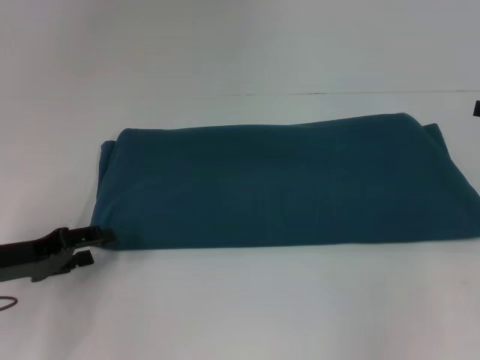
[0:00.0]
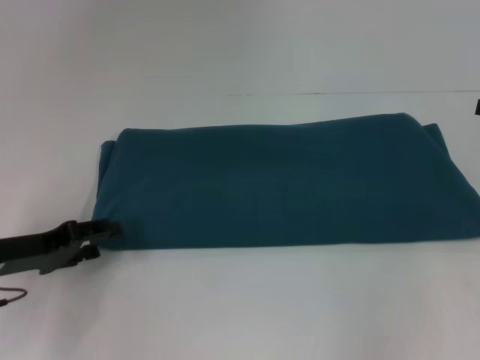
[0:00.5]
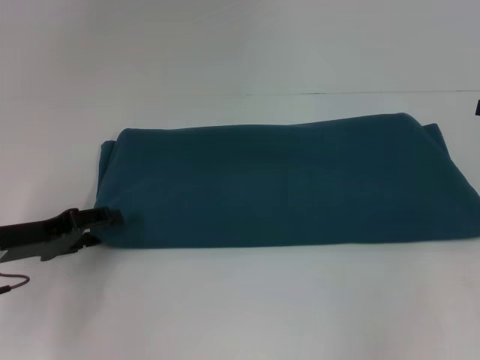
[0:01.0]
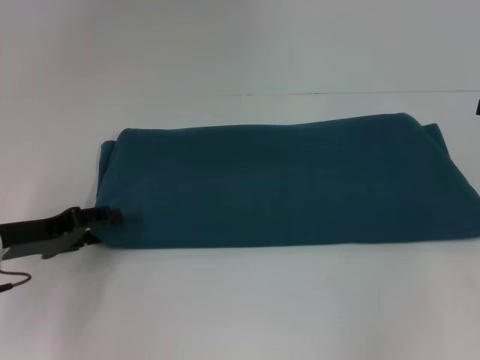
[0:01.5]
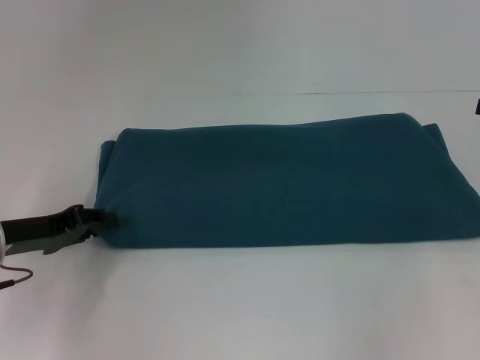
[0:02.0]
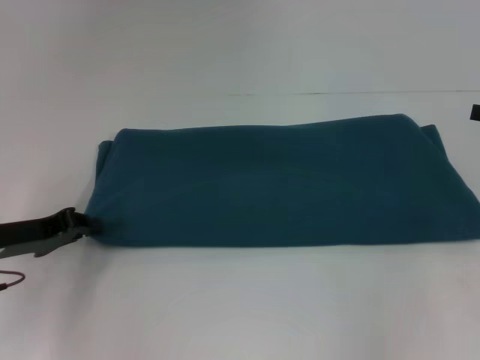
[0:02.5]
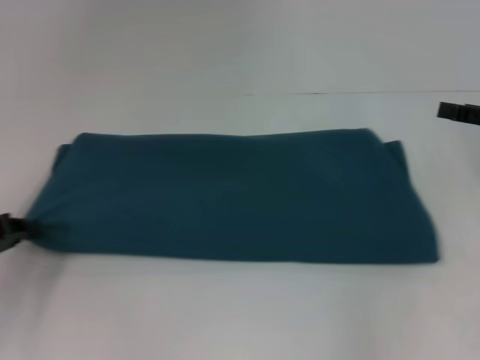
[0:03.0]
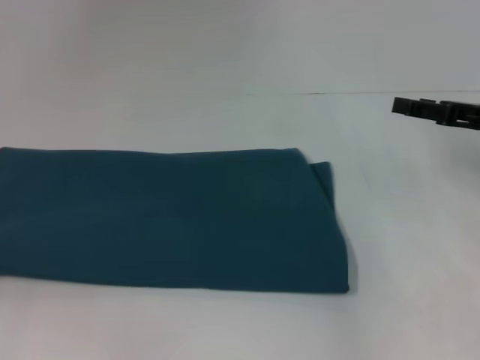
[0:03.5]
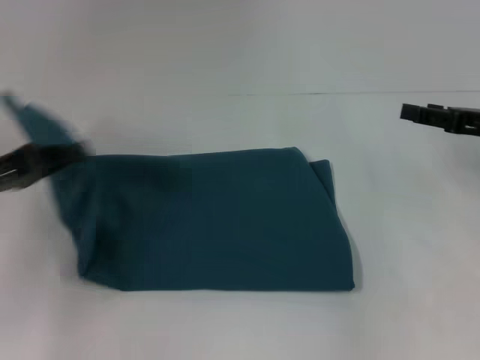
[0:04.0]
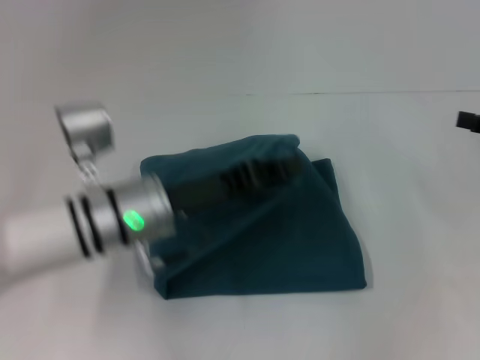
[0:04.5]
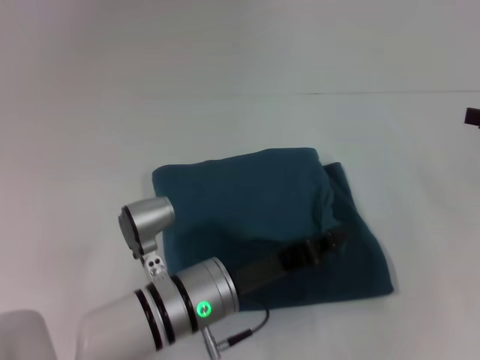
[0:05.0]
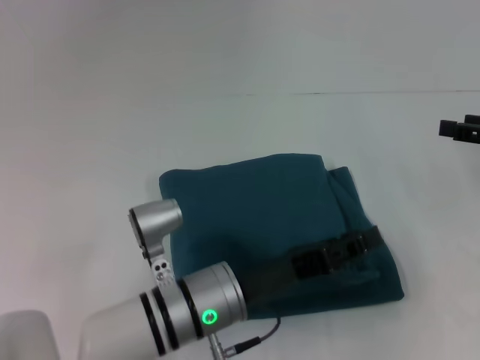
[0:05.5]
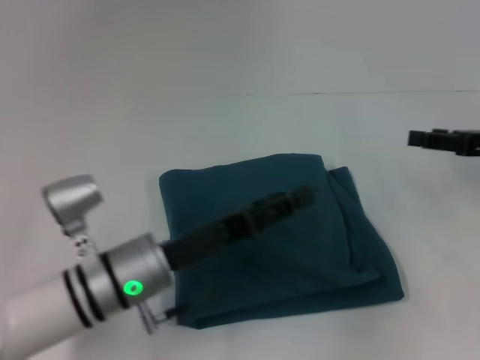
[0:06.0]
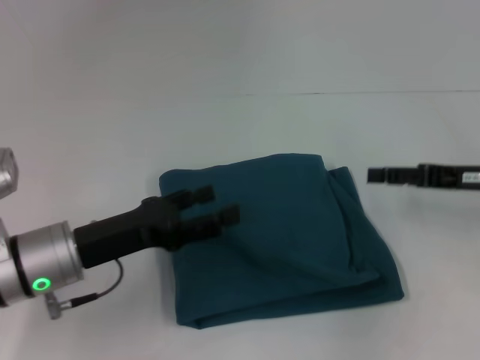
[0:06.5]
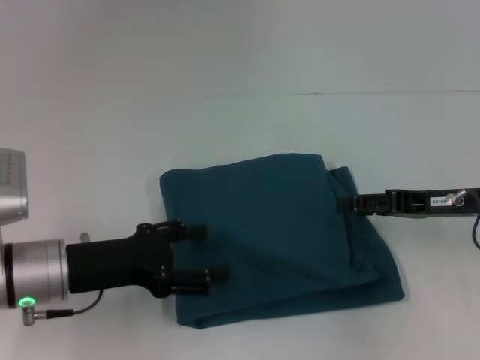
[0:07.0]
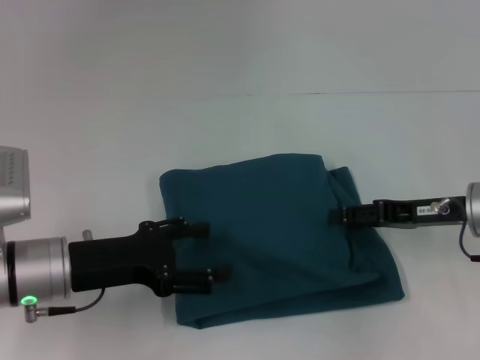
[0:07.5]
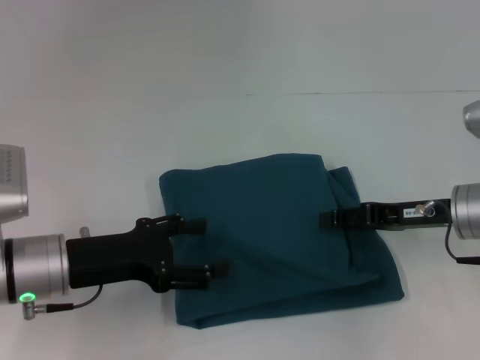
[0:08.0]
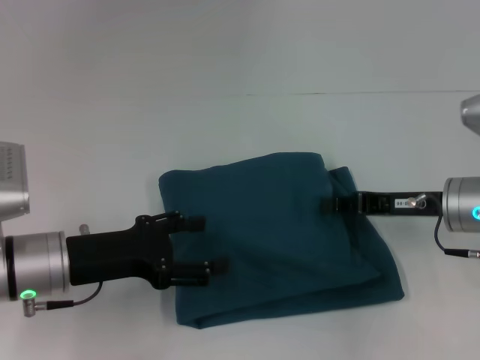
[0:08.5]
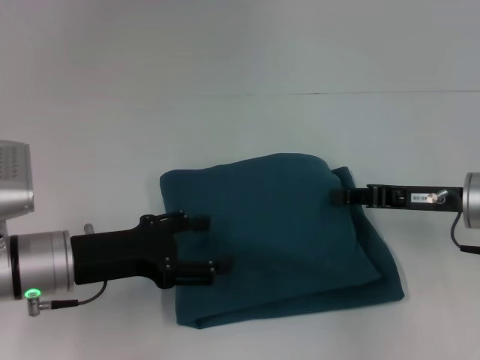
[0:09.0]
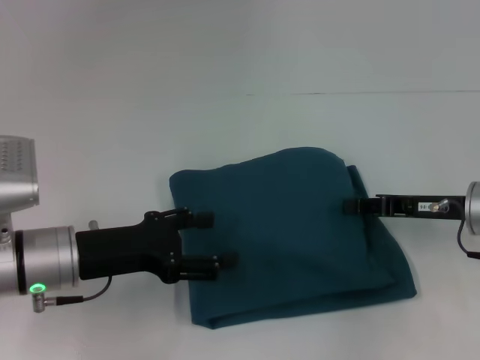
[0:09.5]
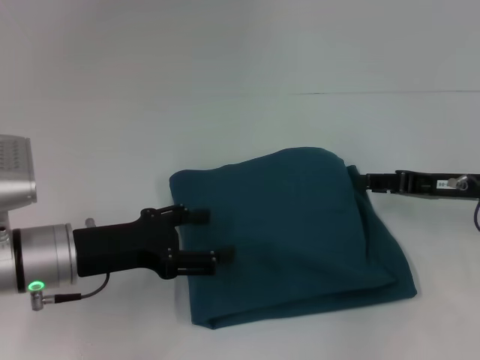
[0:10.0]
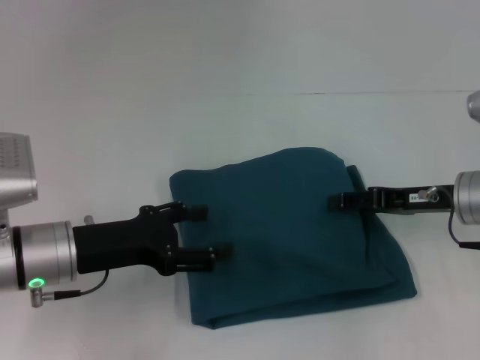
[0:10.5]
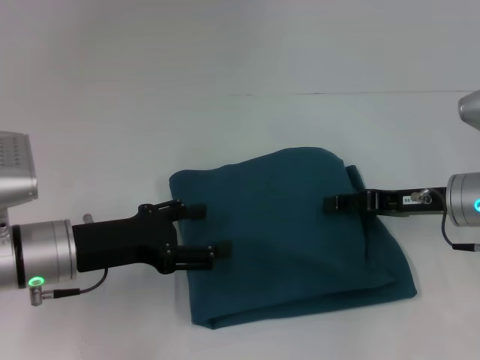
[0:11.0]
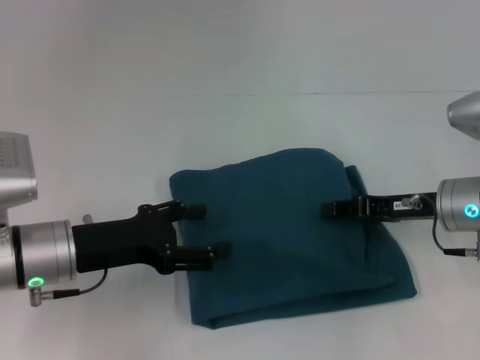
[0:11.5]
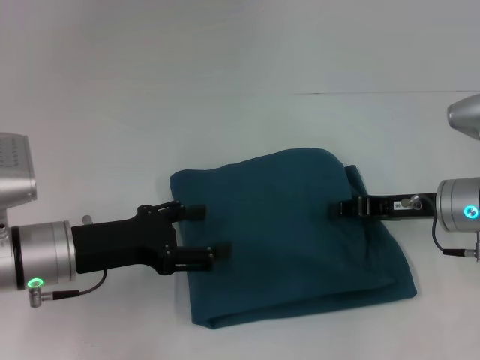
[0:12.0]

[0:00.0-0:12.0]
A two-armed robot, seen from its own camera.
Step, 0:00.0 to 0:05.5: Fold the clothes to the left.
0:00.0 to 0:02.0: The grippers move only a little.
0:02.0 to 0:04.0: The left gripper travels upward by roughly 5 cm, moves roughly 15 cm to the left and comes back, and closes up. Meanwhile the right gripper moves to the left, approximately 5 cm.
0:04.0 to 0:06.0: The left gripper heads to the right and downward, covering some 20 cm, and opens its fingers.
0:06.0 to 0:08.0: Both grippers move to the left, approximately 10 cm.
0:08.0 to 0:10.0: The right gripper closes, then opens again.
0:10.0 to 0:12.0: The grippers make only small movements.

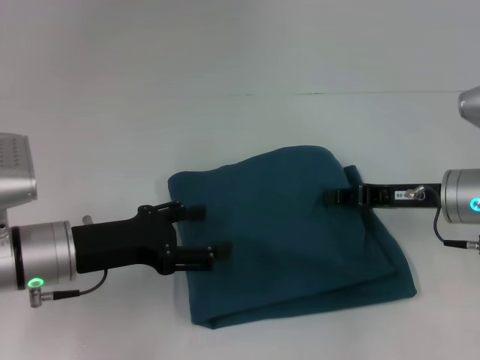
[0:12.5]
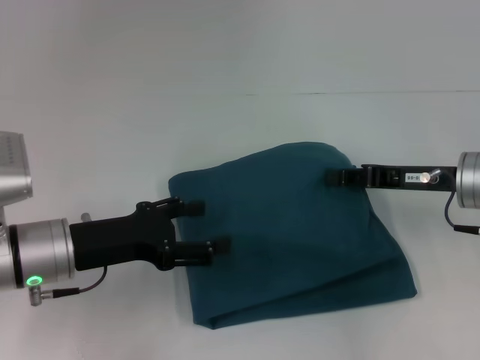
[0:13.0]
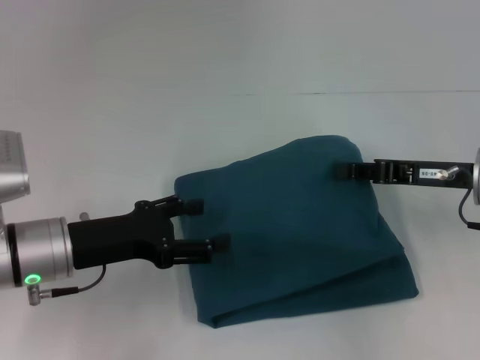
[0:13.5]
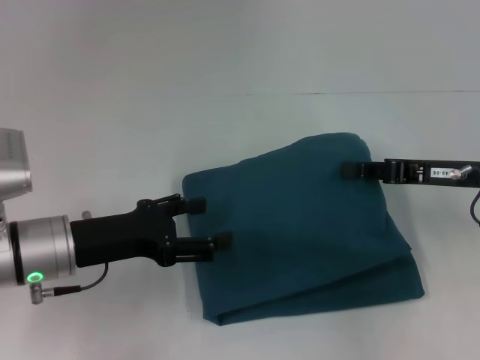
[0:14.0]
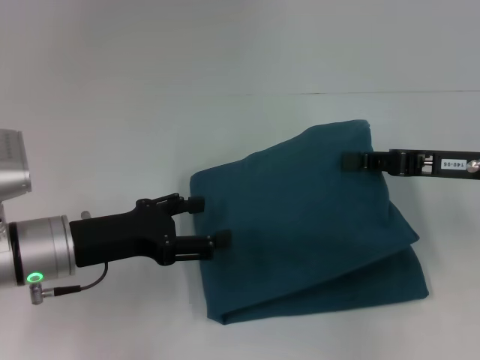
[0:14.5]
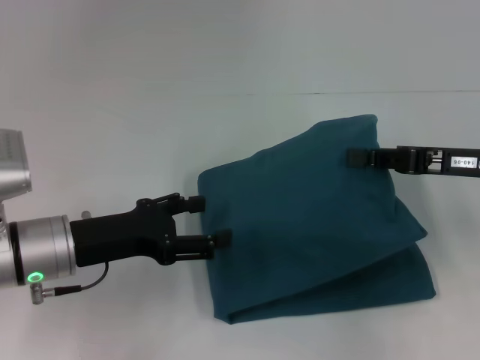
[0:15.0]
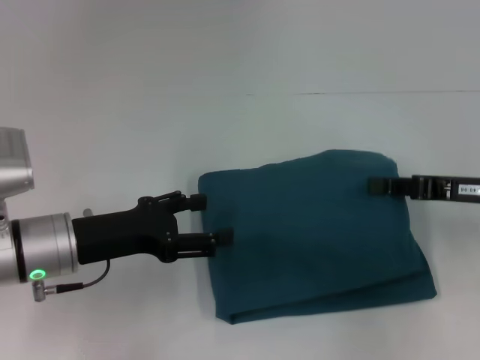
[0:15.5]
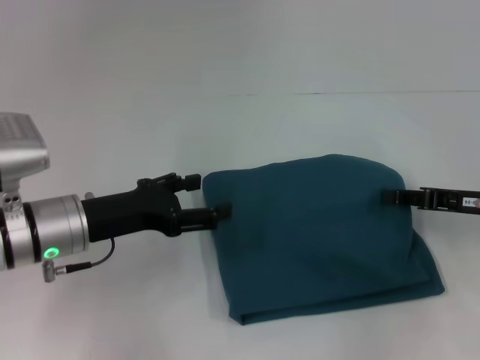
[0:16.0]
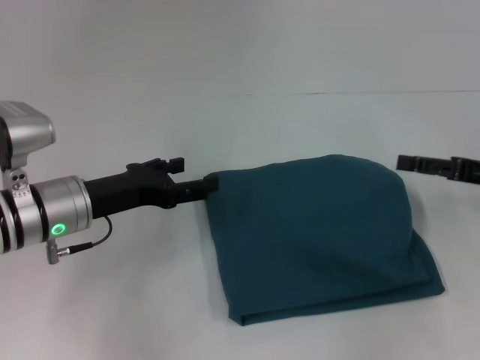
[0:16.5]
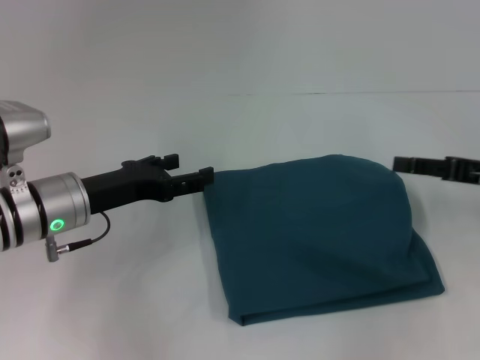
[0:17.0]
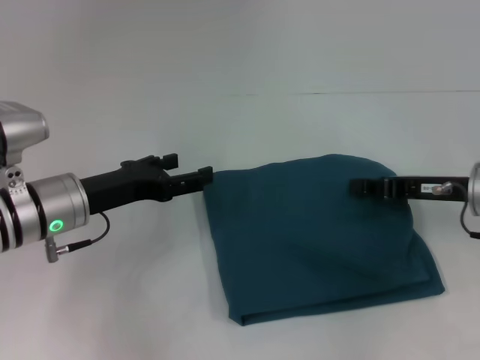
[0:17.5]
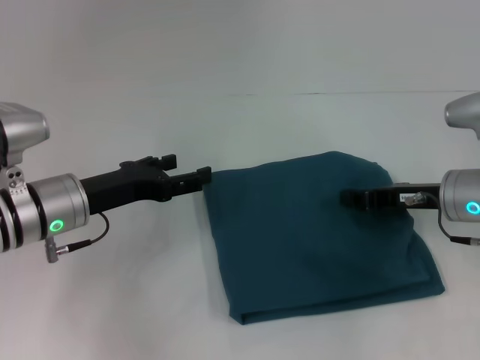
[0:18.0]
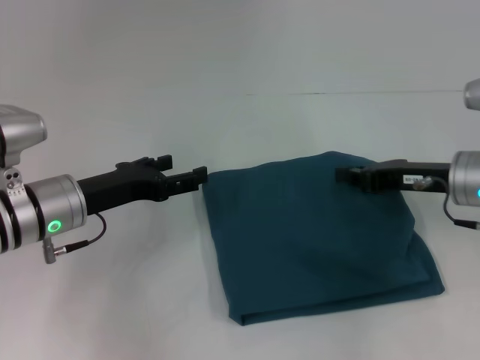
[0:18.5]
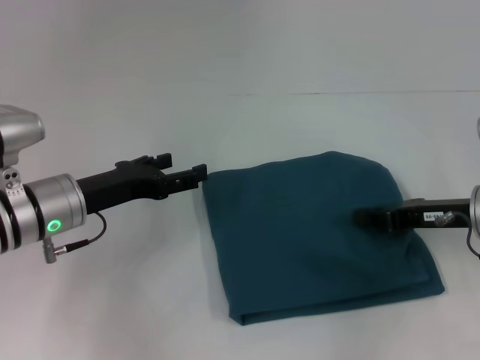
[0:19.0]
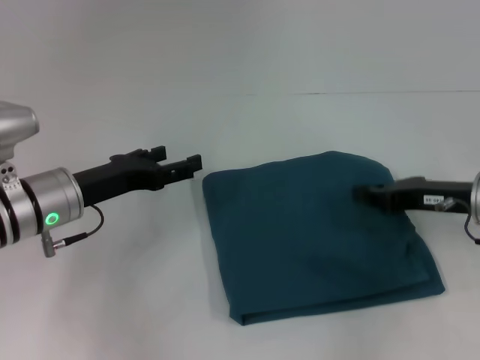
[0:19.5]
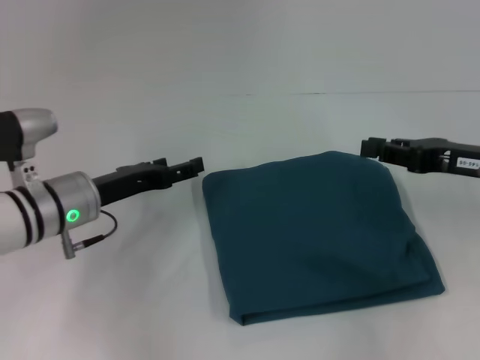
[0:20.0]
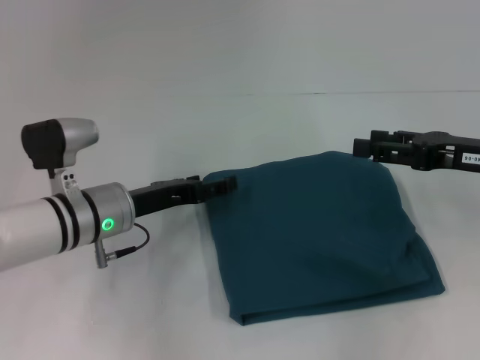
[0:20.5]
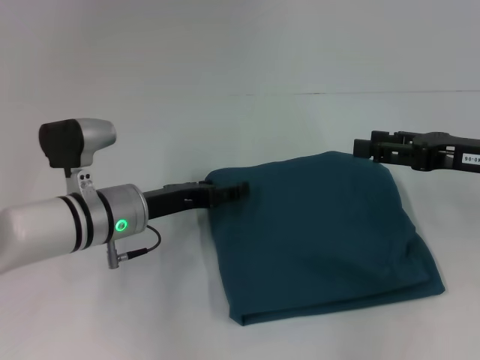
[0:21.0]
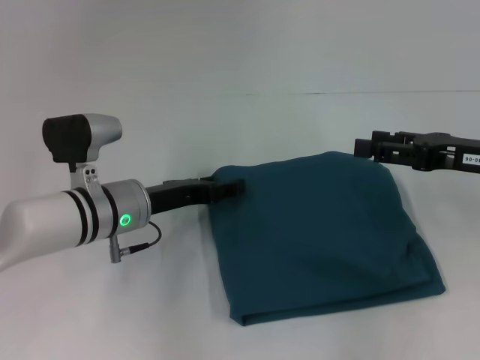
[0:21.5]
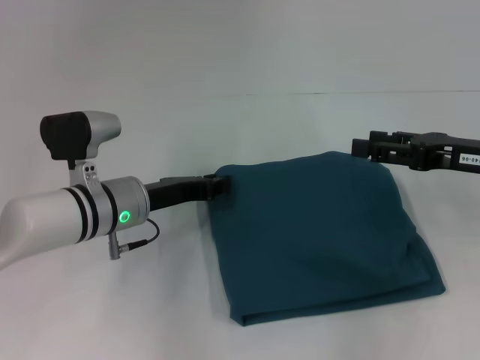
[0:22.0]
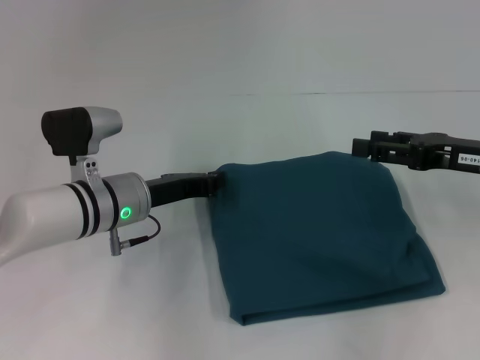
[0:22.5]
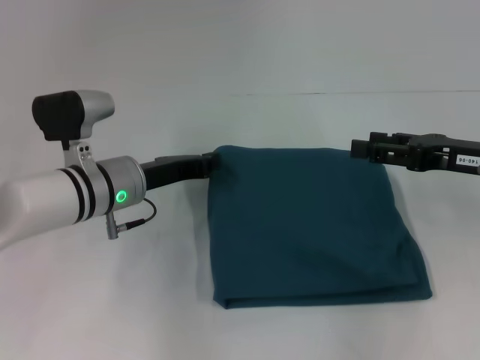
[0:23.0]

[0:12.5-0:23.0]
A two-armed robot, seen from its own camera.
0:12.5 to 0:14.5: The right gripper goes roughly 5 cm upward.
0:14.5 to 0:16.5: The right gripper travels to the right by approximately 5 cm, and opens its fingers.
0:16.5 to 0:19.0: The right gripper shifts about 5 cm to the left, and closes up.
0:19.0 to 0:21.0: The right gripper heads upward, covering approximately 5 cm, and opens its fingers; the left gripper goes some 5 cm to the right.
0:21.0 to 0:23.0: The left gripper closes its fingers.

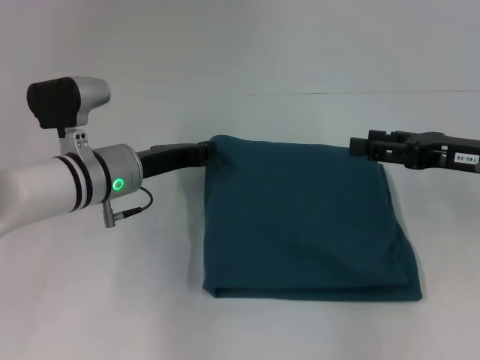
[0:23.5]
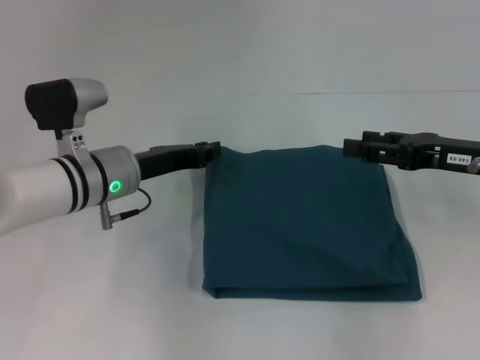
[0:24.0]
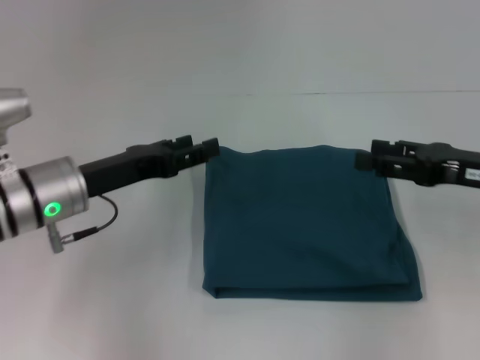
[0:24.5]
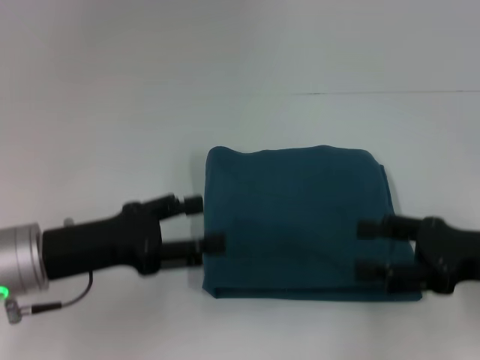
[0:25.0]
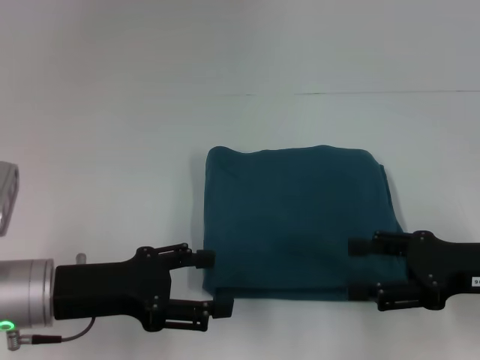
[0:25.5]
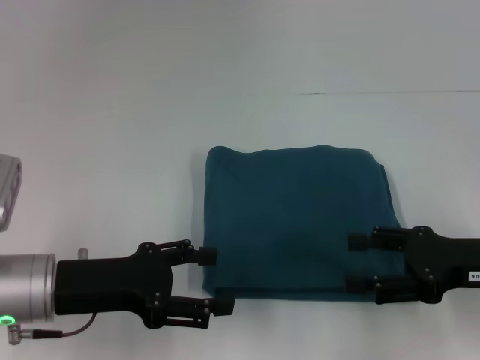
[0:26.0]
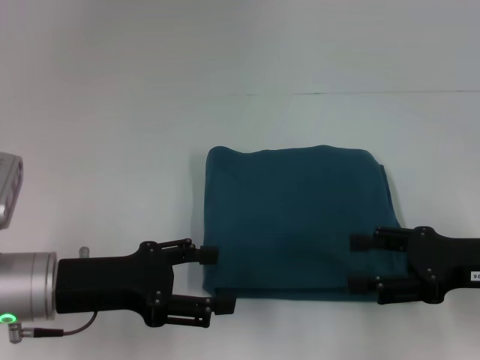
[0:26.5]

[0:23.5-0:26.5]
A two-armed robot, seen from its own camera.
0:23.5 to 0:25.0: The right gripper heads backward, covering about 10 cm. Meanwhile the left gripper heads backward and to the left, covering roughly 15 cm, and opens its fingers.
0:25.0 to 0:26.5: The grippers stay close to where they were, moving slightly.
